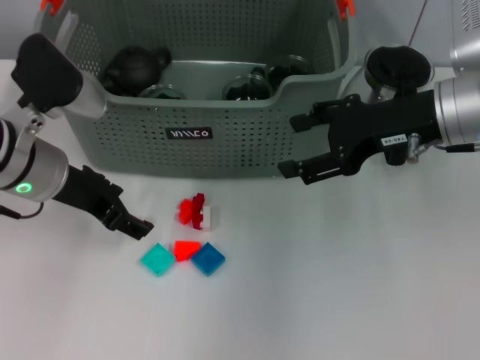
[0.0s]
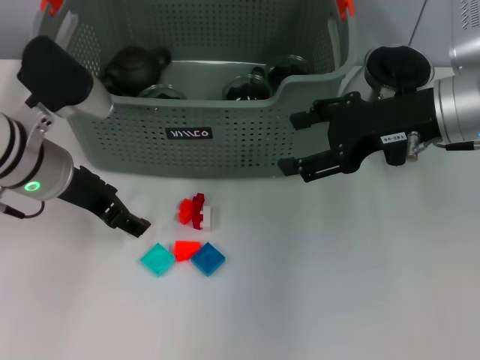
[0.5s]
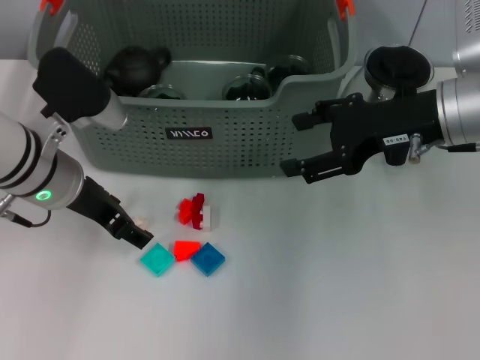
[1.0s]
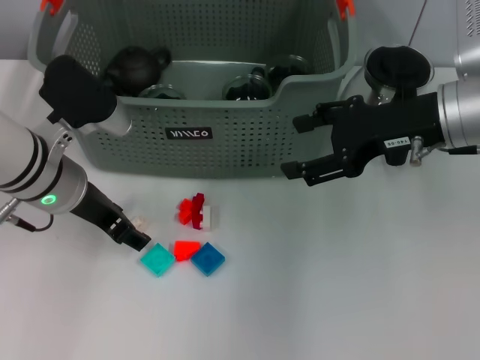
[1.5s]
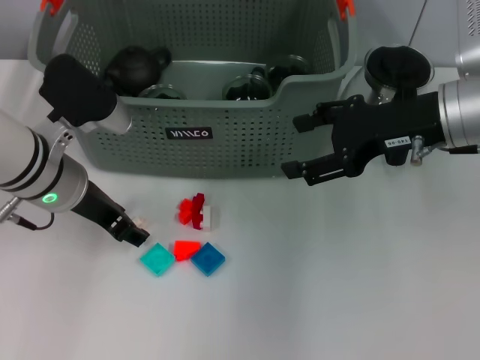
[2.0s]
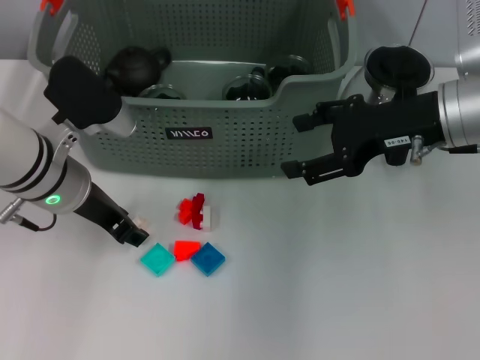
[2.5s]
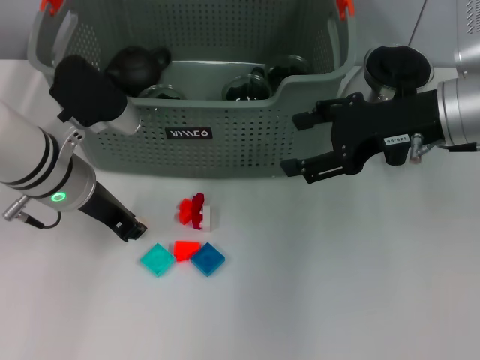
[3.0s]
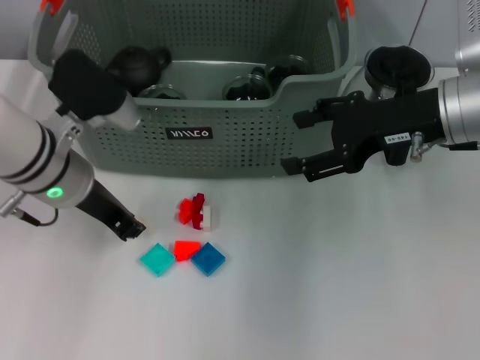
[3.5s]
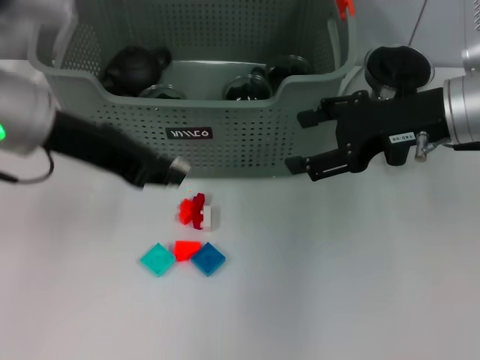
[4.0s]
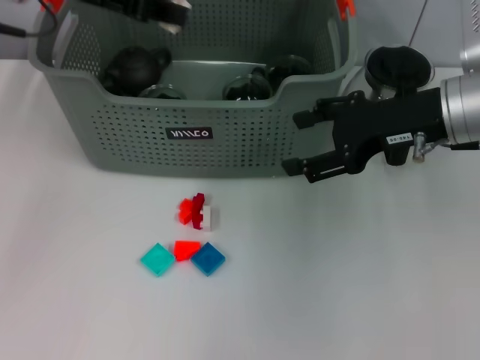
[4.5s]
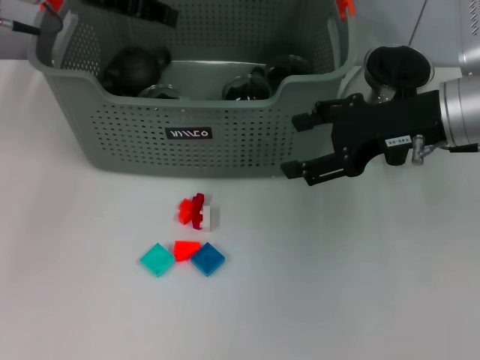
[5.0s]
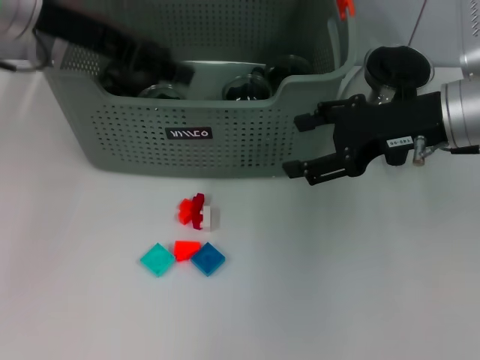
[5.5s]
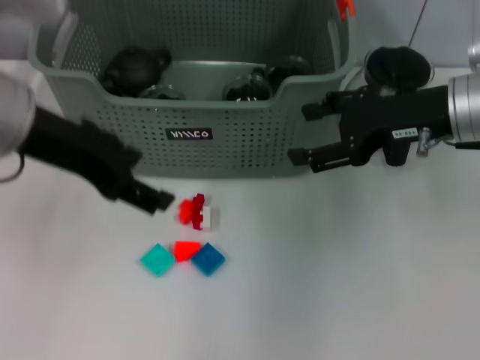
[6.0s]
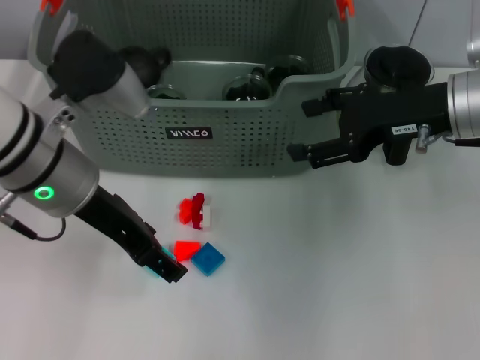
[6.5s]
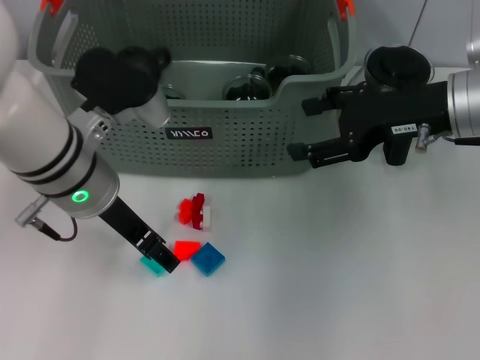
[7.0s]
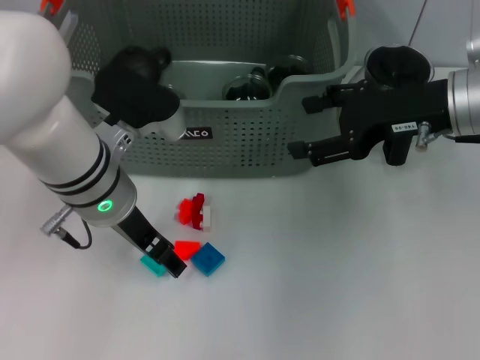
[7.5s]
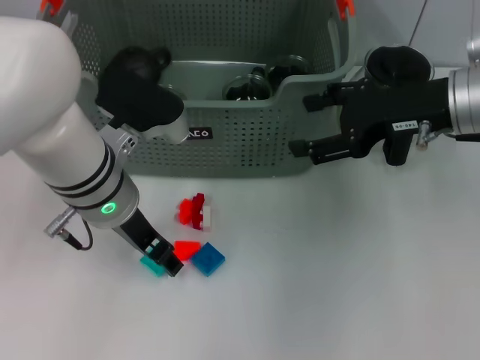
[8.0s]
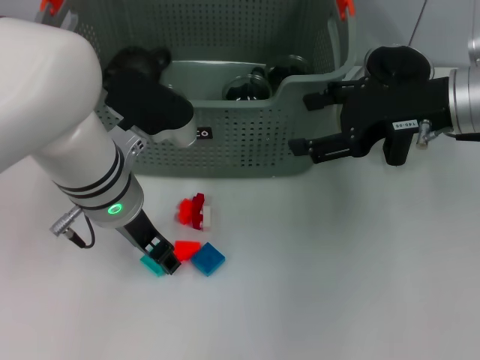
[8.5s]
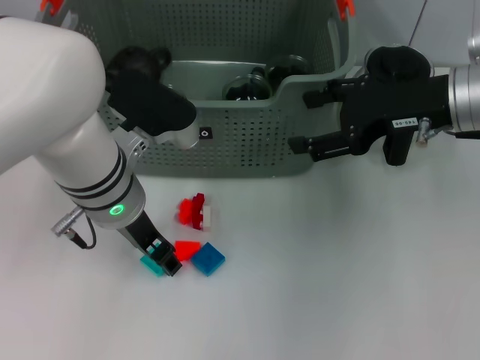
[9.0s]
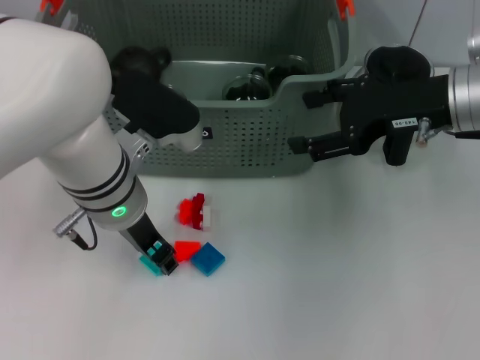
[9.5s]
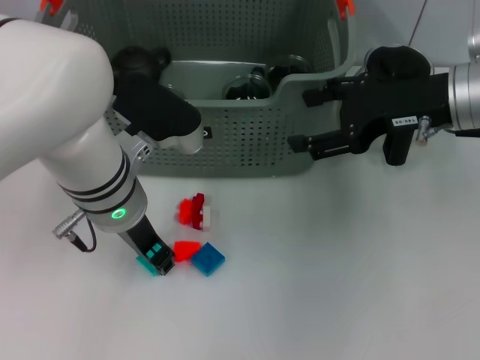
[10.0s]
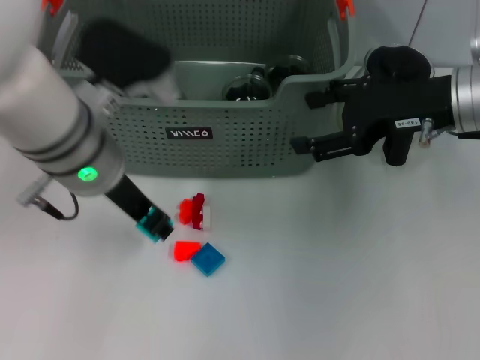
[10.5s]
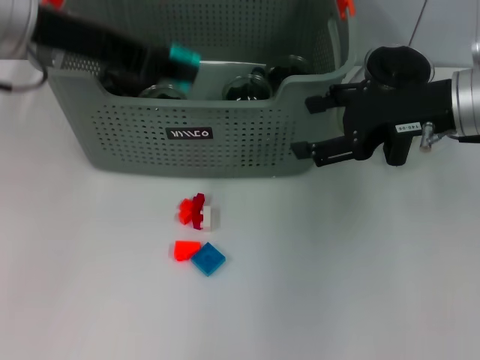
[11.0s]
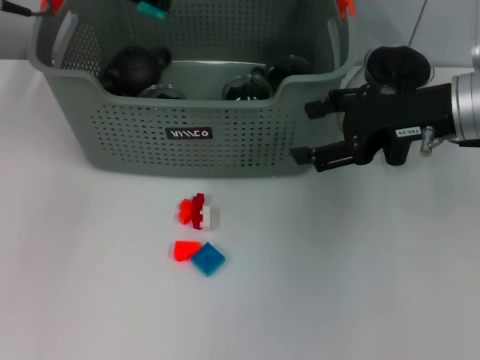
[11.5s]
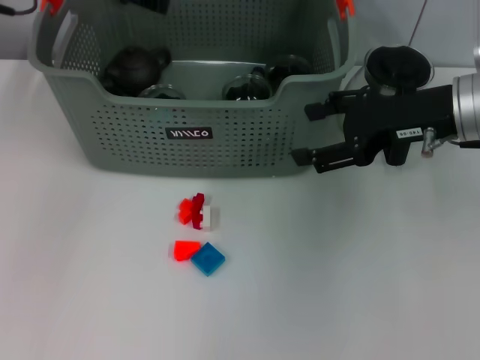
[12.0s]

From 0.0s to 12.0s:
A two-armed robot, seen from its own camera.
Task of the whole recording: pick up the teacup on the table and place it into the storage bin, pick up the block on the table and place it into the storage bin.
Step, from 0.0s to 3.0s: Grasp the white block with left gripper.
Step, from 3.5s to 5.0s: Place the white block in the storage box with left gripper.
Step, from 5.5s to 9.5s: Grasp the light blue block with left gripper.
Step, from 10.0s to 11.5s: Place the light blue block in the storage box with left gripper.
From 0.0s to 2.0s: There are only small adjustments of the grippers.
From 2.0s to 4.0s: The left gripper heads upward, covering some 10 cm, and closes.
From 4.0s to 6.0s: The left gripper moves some 10 cm forward and comes back, and opens.
From 6.0s to 8.0s: The left gripper goes roughly 15 cm downward and to the right.
From 8.0s to 10.0s: The left gripper closes its fingers.
From 10.0s to 12.0s: The left gripper is displaced upward, to the left and forward by roughly 20 cm.

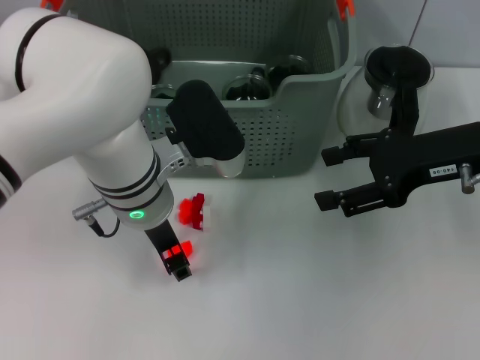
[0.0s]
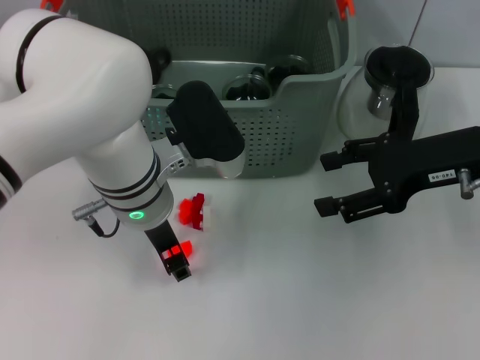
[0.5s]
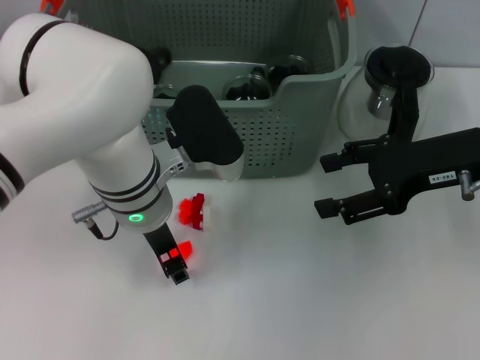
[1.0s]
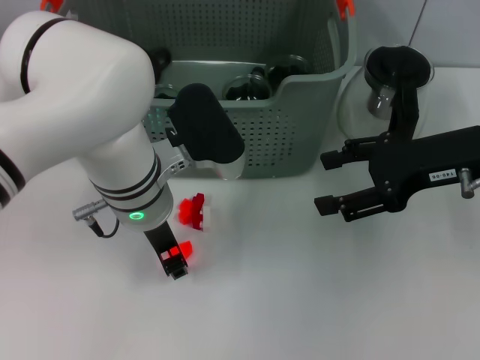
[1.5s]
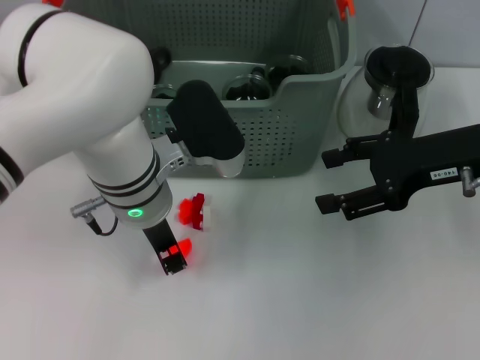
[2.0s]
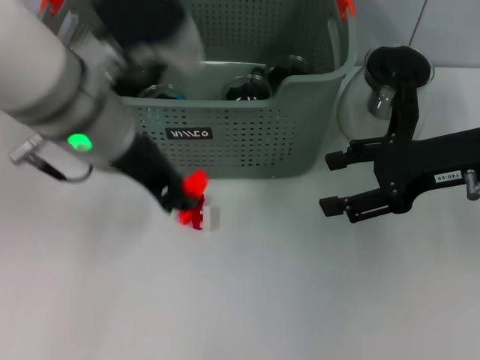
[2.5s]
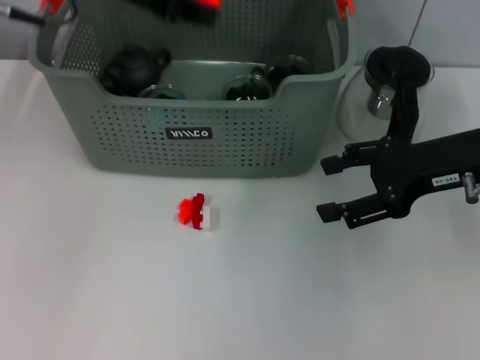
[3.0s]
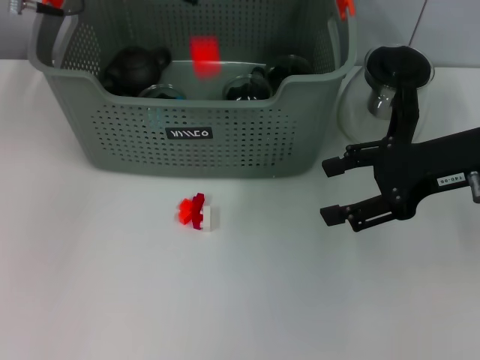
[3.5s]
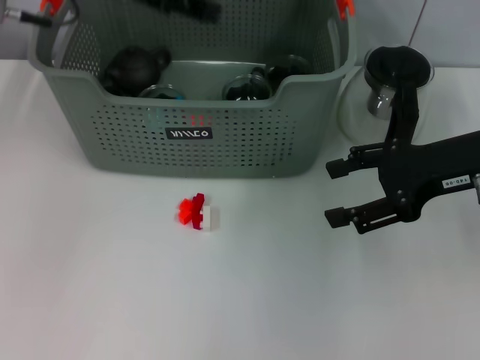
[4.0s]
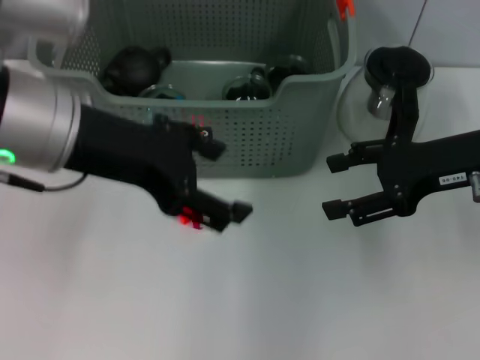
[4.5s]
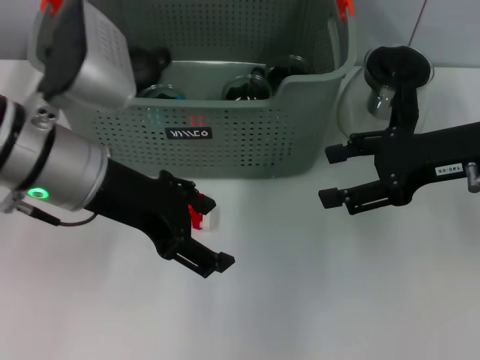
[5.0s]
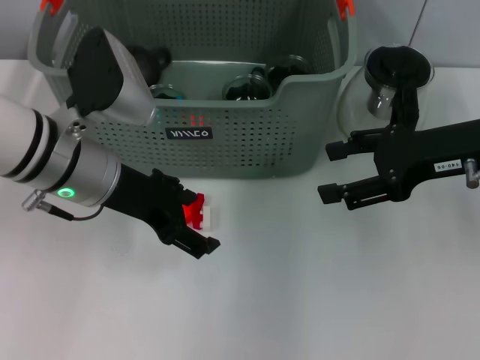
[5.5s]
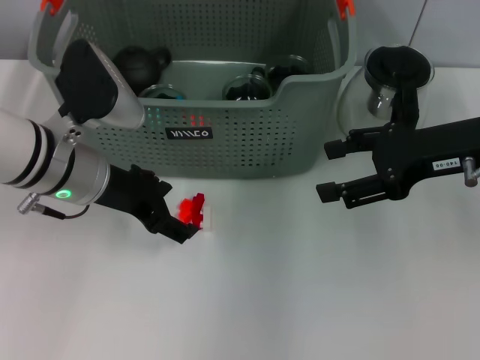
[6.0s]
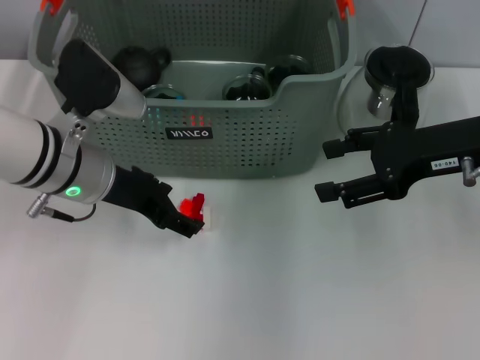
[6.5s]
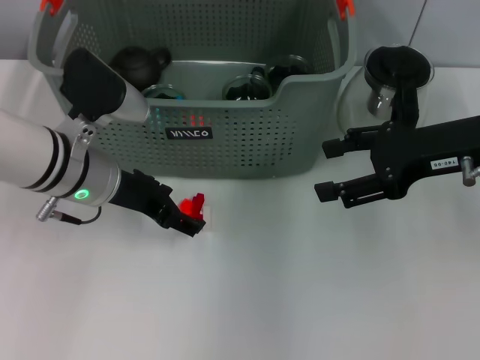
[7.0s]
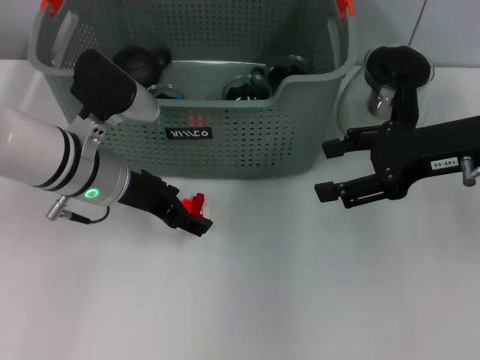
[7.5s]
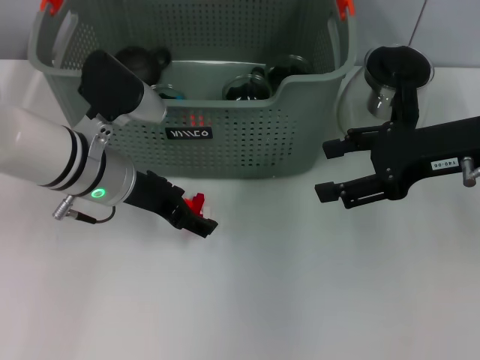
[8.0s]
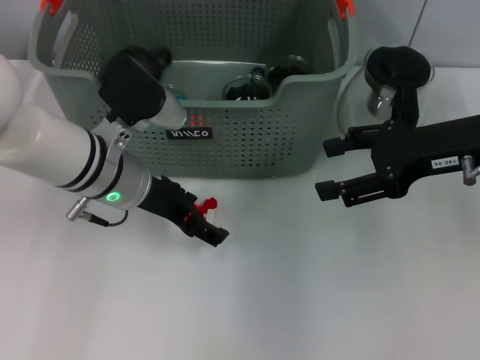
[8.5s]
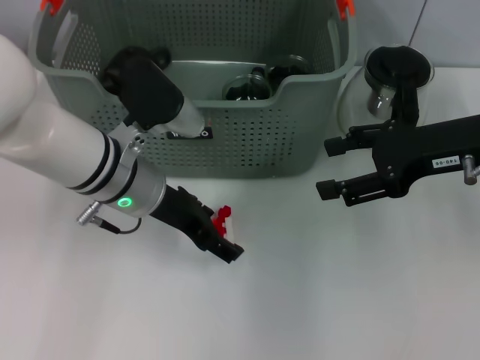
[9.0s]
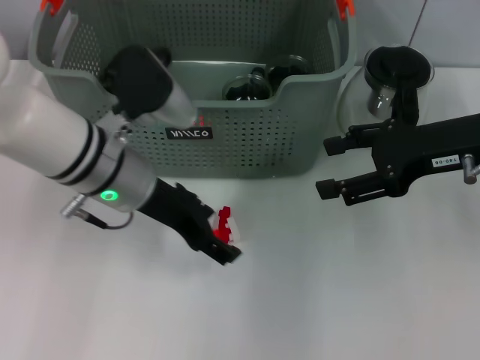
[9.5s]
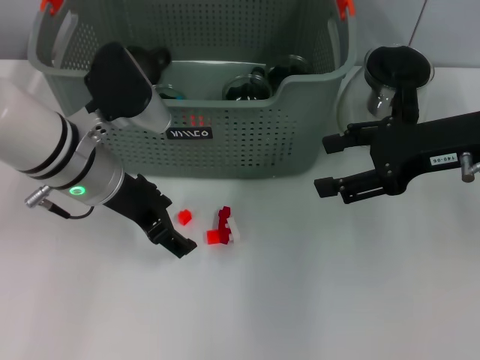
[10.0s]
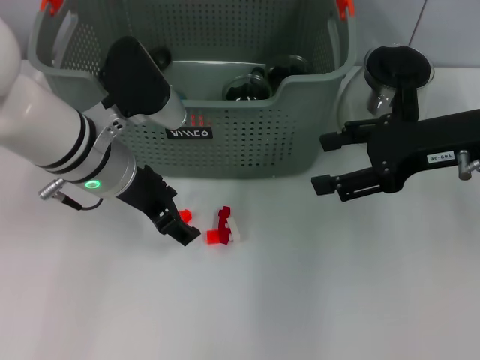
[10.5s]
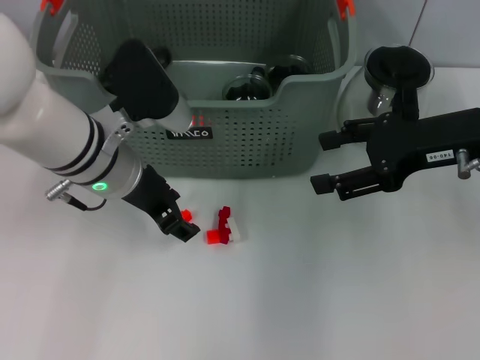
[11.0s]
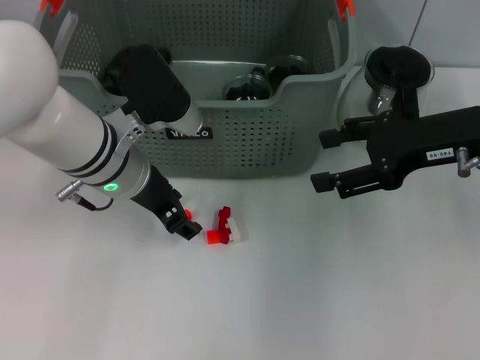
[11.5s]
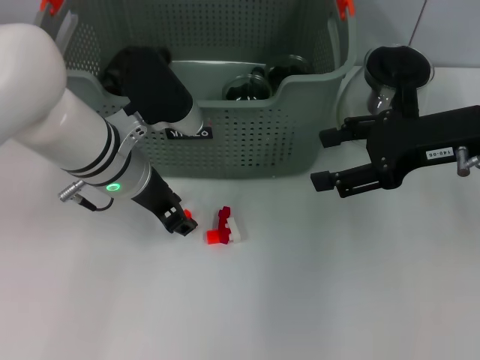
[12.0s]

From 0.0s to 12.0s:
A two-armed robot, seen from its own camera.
Task of the whole recording: pick up the teacup on the table and place it into the storage bin, pick up the block on the table and place it into the storage bin.
Step, from 0.0s to 1.5s: Grasp the orange block with left gripper.
Step, from 2.0s to 3.5s: Place the orange block in the storage box with left gripper.
From 0.0s to 2.0s: Both grippers stay put.
From 2.0s to 4.0s: The left gripper moves upward and to the left, some 20 cm, and opens up.
From 4.0s to 6.0s: The left gripper moves downward, some 15 cm.
From 6.0s to 10.0s: There are only small adjustments of the grippers.
From 10.0s to 12.0s: The left gripper closes up.

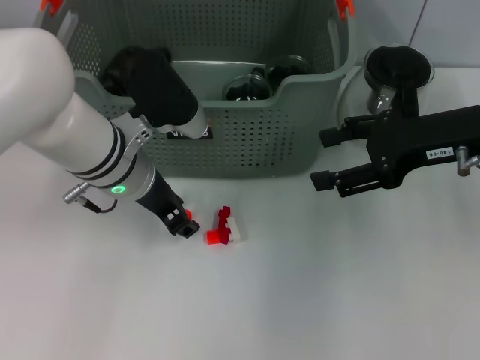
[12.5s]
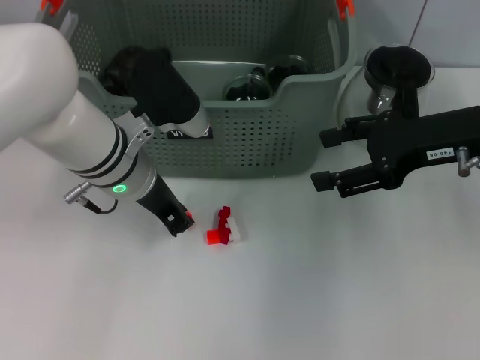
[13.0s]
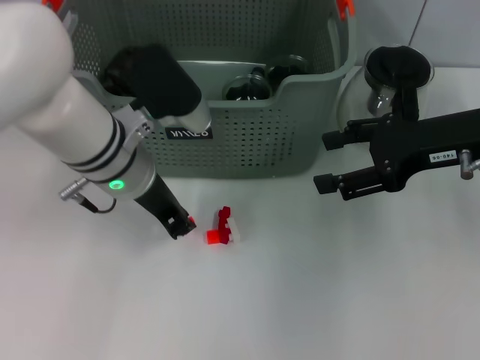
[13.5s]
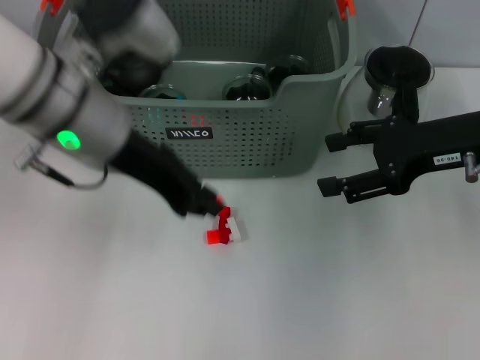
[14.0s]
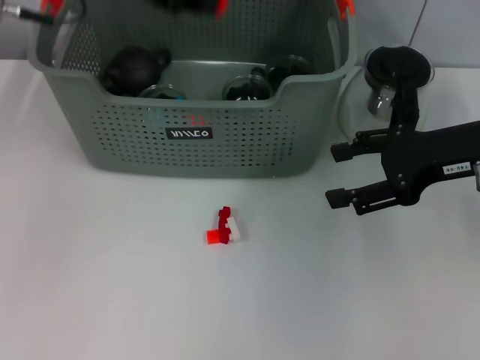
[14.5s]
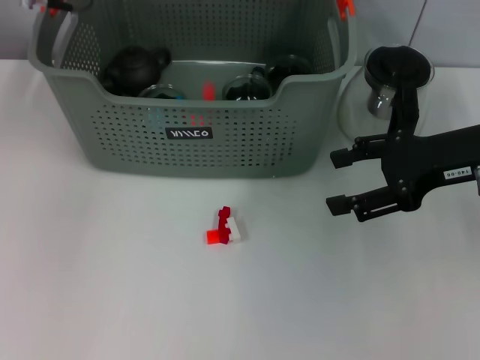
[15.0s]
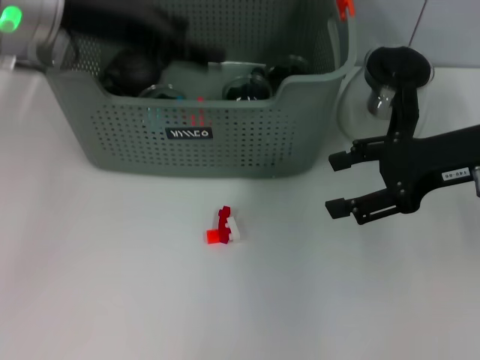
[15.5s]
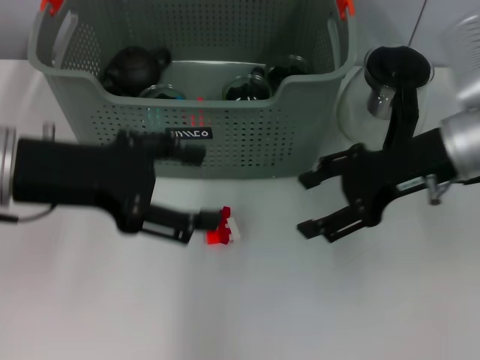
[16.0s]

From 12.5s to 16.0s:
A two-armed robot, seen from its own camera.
Task of the whole recording: pick up the teacup on the table and place it into the storage bin, pick up the block on the table and place it into the storage bin.
Step, from 13.5s to 15.0s: Place the orange block in the storage box with left gripper.
From 12.5s to 14.5s: The left gripper travels upward by approximately 20 cm, and closes its fingers.
From 14.5s to 16.0s: The left gripper heads backward and downward, covering about 15 cm, and opens.
